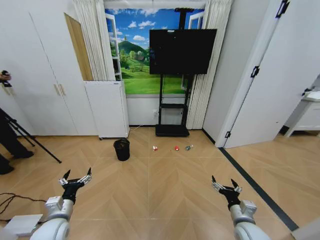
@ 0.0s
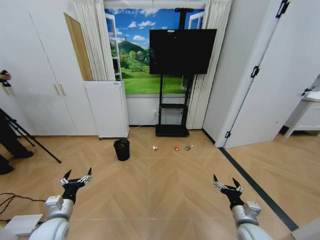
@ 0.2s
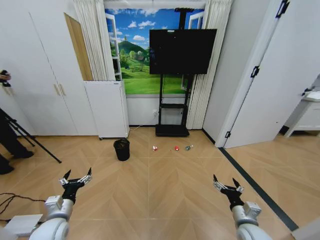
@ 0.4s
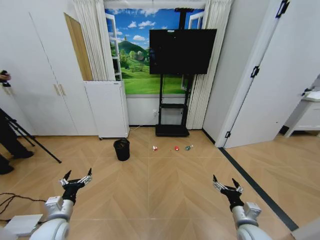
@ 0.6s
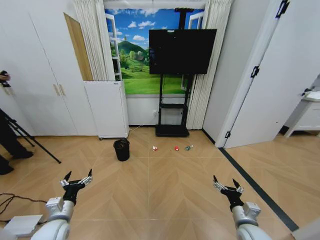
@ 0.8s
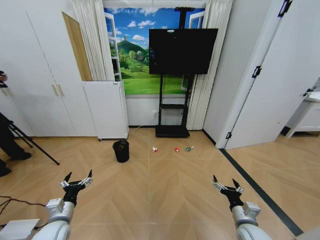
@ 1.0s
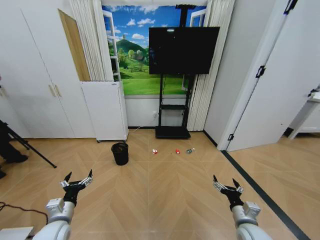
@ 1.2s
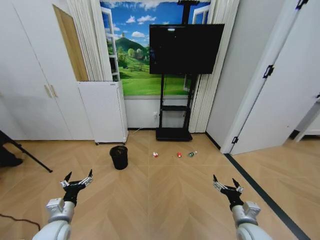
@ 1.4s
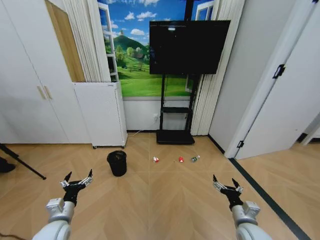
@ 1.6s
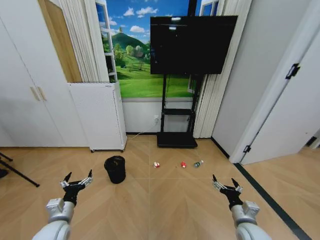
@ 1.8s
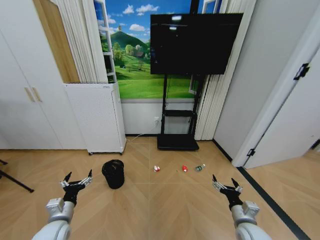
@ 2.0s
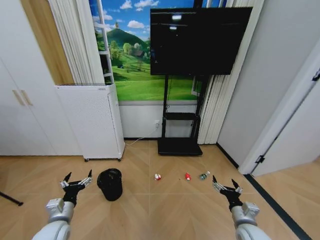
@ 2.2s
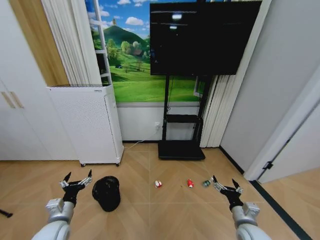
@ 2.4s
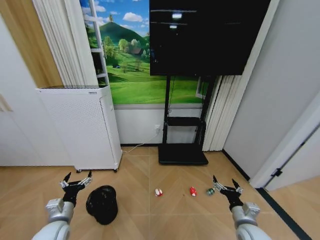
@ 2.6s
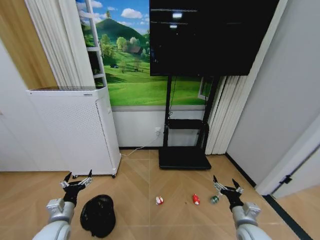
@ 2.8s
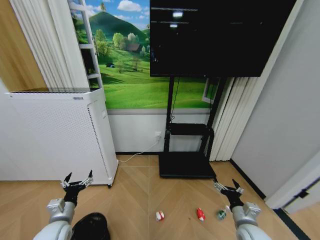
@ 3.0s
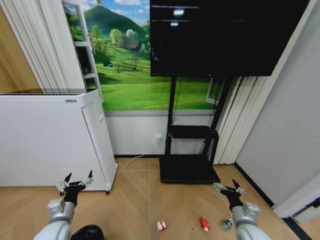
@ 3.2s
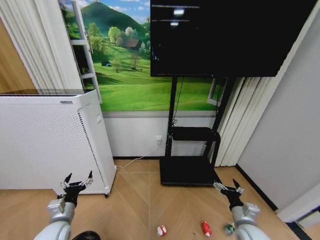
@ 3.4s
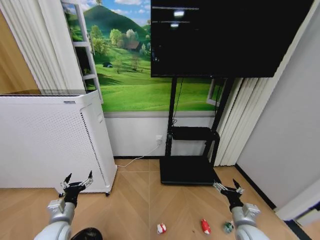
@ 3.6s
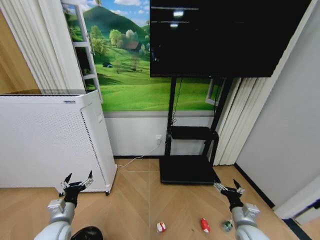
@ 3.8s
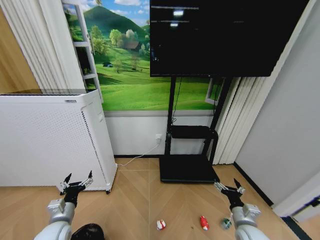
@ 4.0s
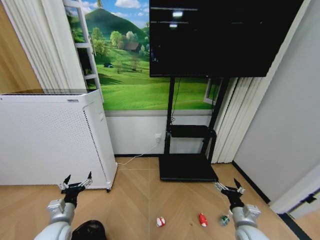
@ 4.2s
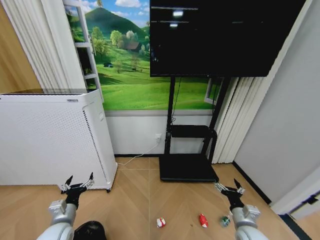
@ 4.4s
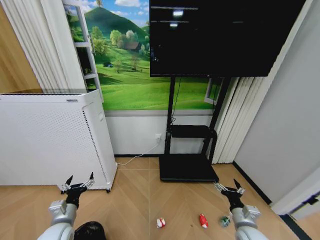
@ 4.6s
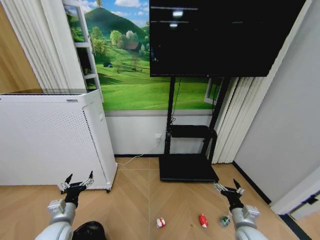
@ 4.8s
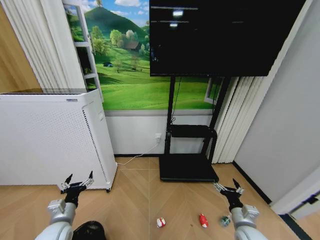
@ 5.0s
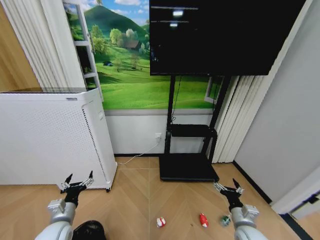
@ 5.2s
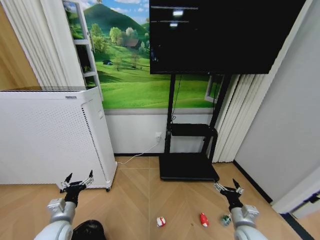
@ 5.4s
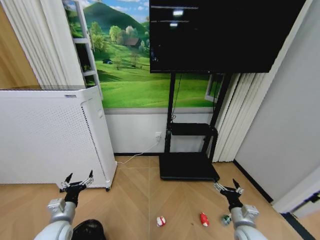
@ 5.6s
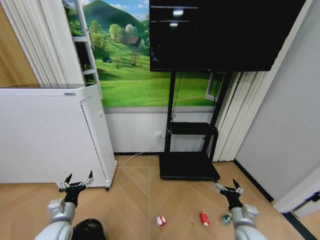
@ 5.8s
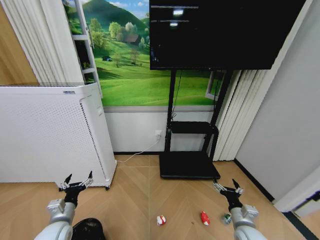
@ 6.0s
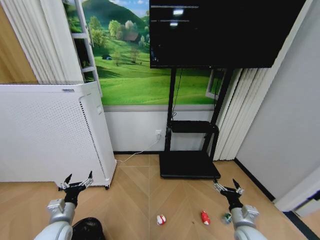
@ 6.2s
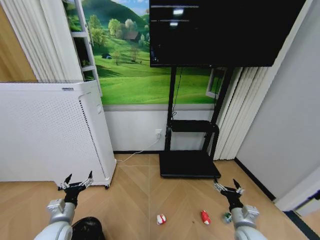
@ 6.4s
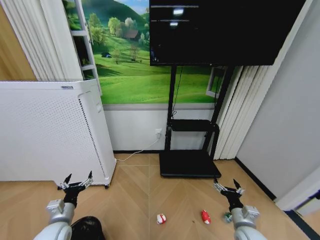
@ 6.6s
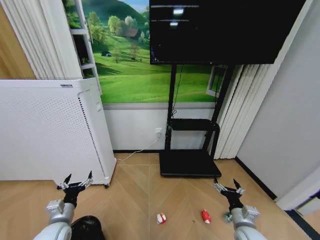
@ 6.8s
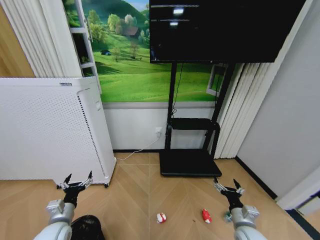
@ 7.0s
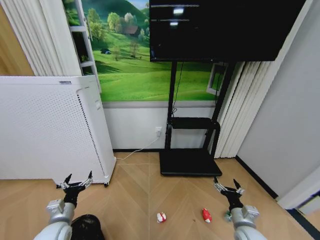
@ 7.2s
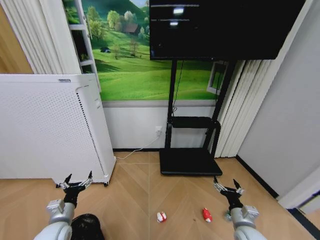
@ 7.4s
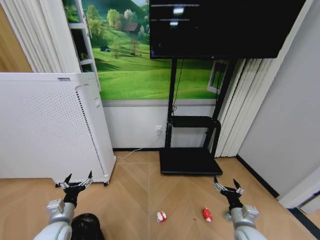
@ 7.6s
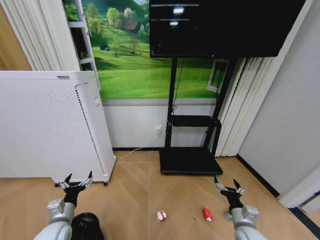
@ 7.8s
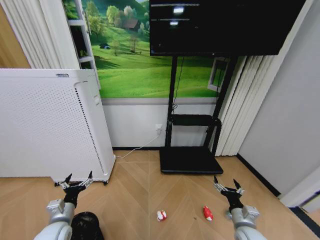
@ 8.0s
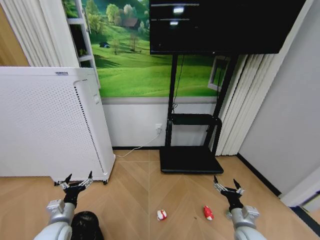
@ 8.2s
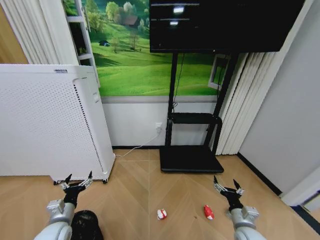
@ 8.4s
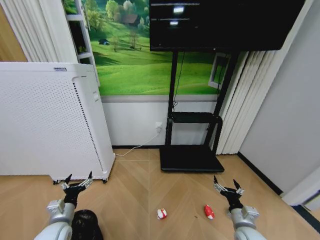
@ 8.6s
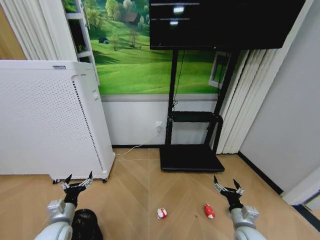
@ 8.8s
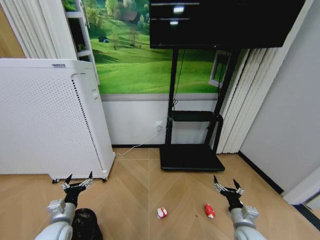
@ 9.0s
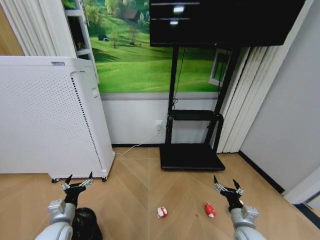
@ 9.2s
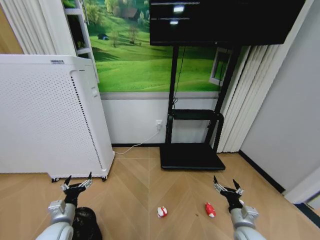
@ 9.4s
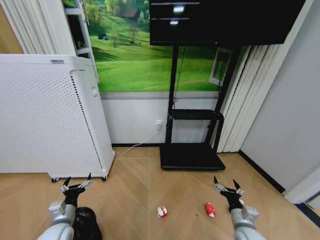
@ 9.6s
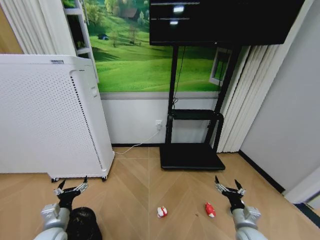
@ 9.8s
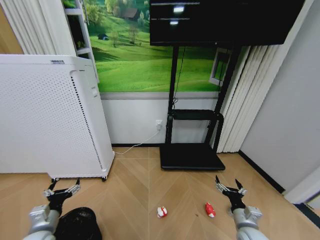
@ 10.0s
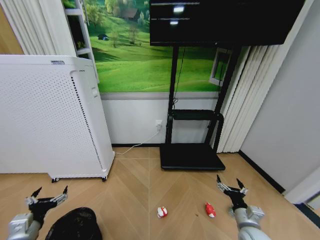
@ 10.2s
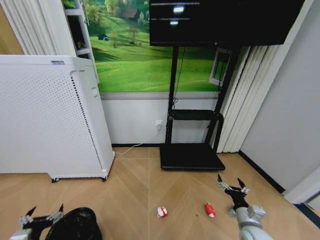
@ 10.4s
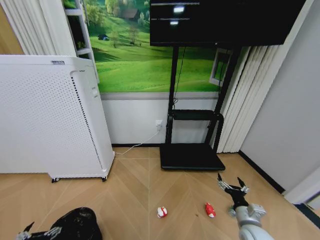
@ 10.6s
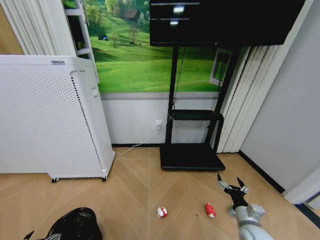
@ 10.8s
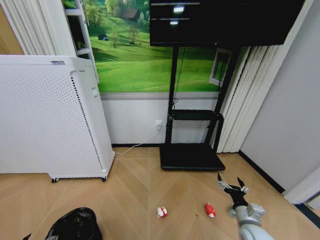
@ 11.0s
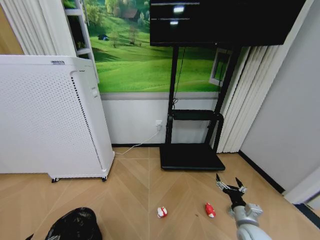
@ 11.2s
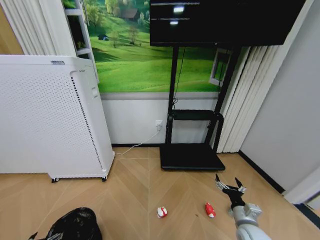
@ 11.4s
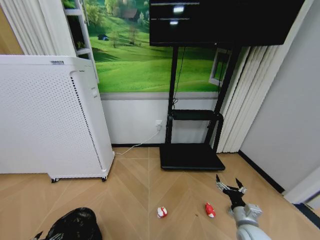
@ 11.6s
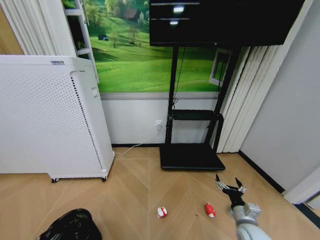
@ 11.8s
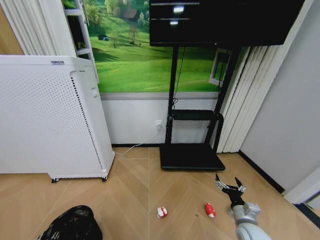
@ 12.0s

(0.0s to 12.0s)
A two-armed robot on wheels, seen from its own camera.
Task of the whole recording: Pick up the trash bin and place the garbage on the floor into it.
3.0s - 4.4s: Both grippers stay put.
4.4s - 9.0s: The two grippers keep their place.
9.0s - 10.4s: The left gripper heads backward and to the left, covering about 10 cm.
10.4s - 12.0s: The left gripper moves downward, roughly 10 cm, and closes.

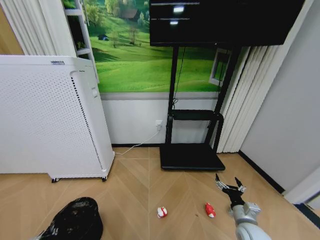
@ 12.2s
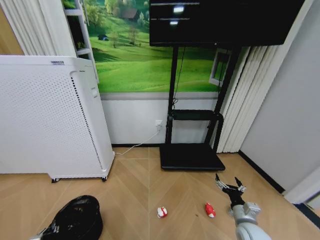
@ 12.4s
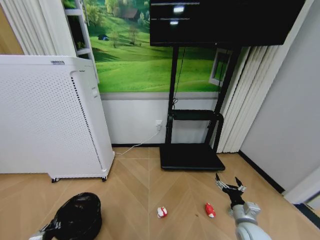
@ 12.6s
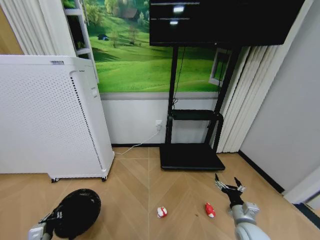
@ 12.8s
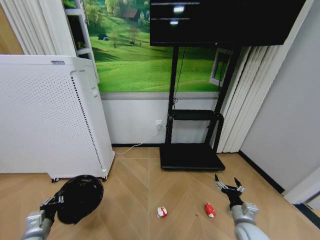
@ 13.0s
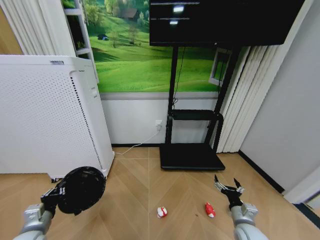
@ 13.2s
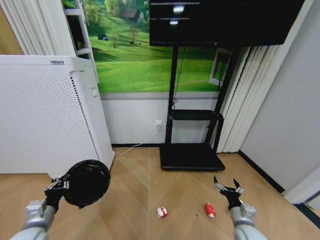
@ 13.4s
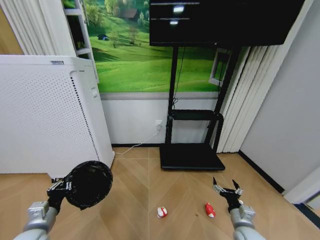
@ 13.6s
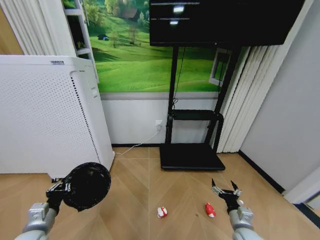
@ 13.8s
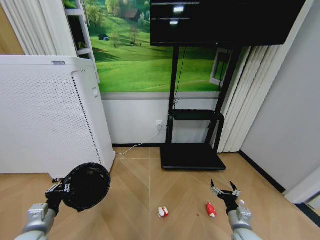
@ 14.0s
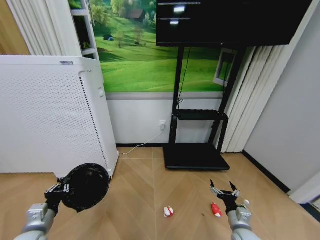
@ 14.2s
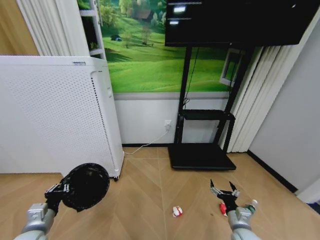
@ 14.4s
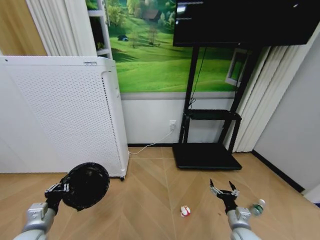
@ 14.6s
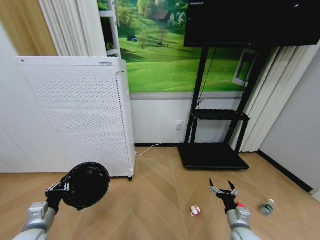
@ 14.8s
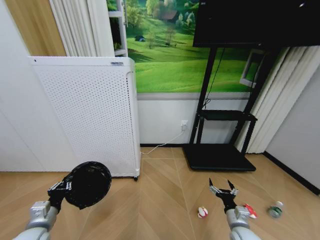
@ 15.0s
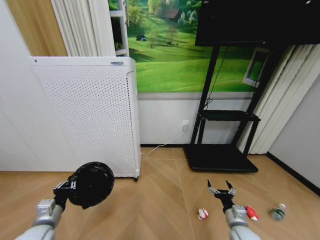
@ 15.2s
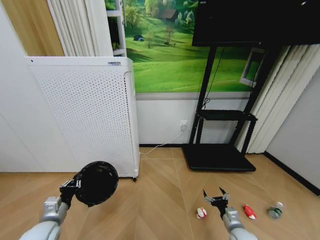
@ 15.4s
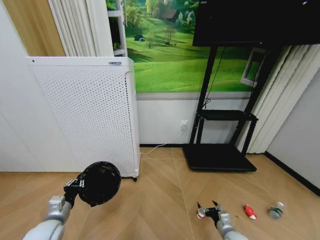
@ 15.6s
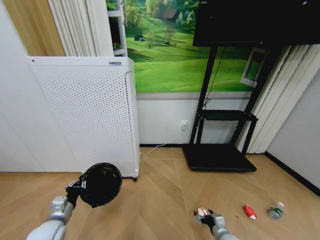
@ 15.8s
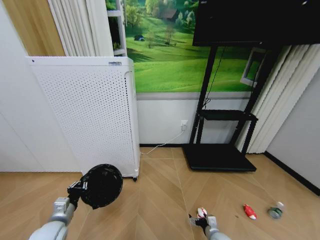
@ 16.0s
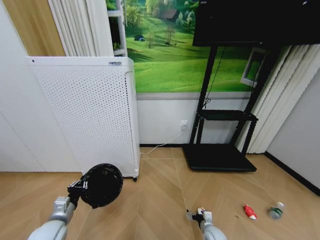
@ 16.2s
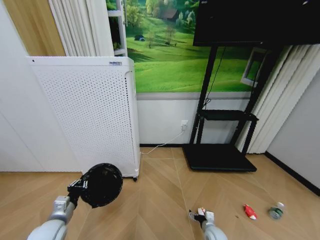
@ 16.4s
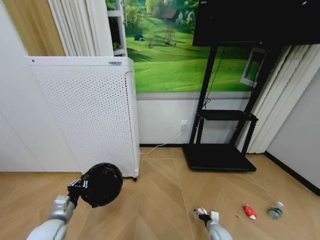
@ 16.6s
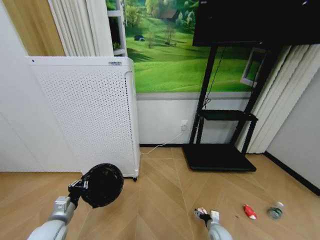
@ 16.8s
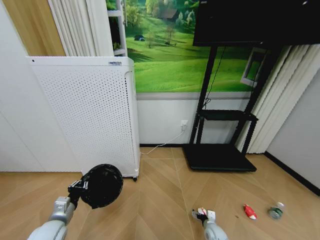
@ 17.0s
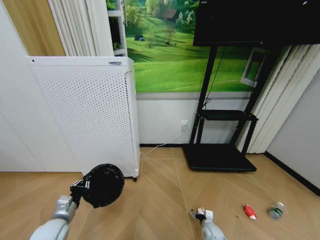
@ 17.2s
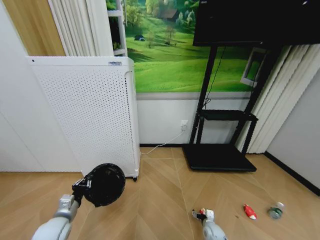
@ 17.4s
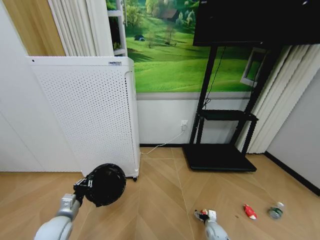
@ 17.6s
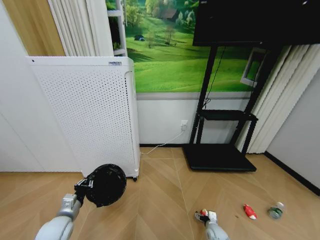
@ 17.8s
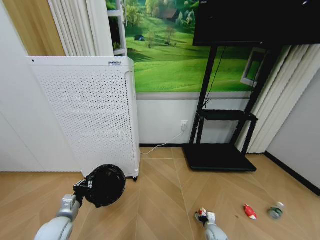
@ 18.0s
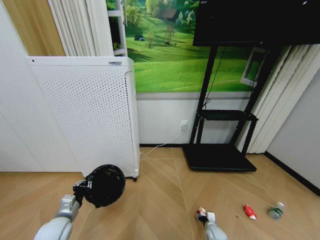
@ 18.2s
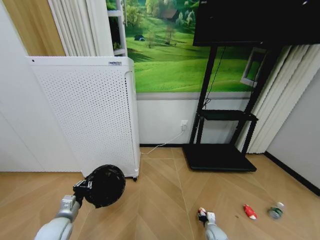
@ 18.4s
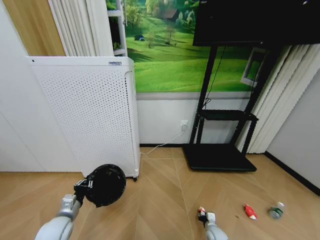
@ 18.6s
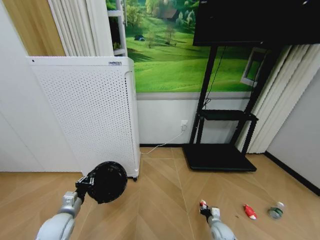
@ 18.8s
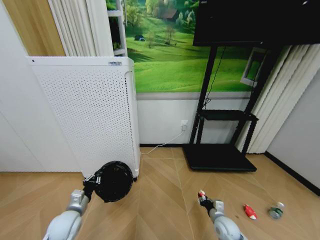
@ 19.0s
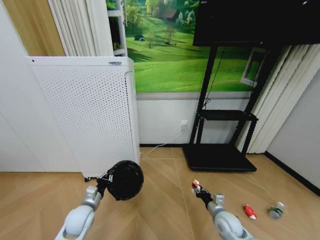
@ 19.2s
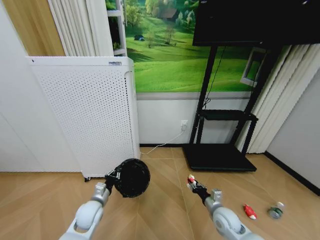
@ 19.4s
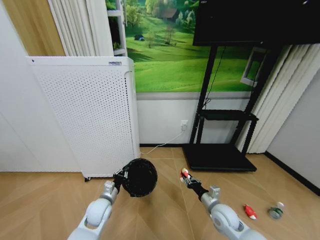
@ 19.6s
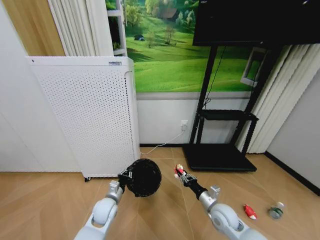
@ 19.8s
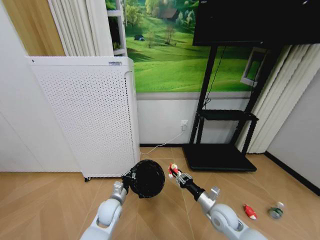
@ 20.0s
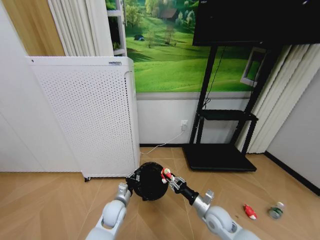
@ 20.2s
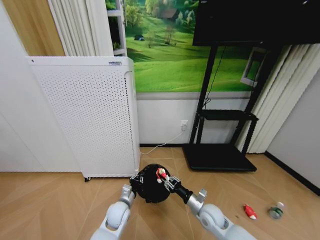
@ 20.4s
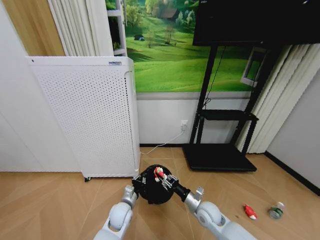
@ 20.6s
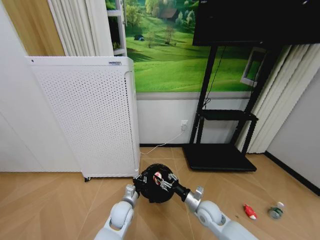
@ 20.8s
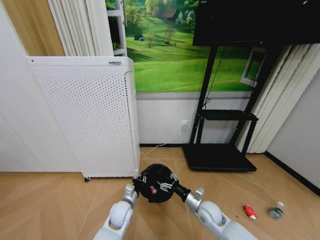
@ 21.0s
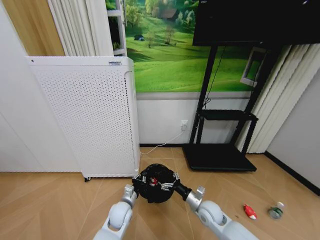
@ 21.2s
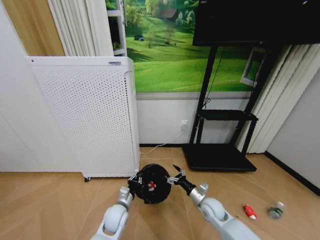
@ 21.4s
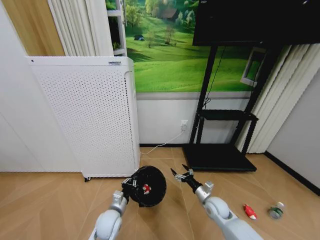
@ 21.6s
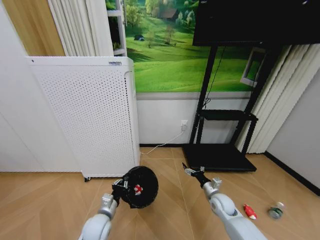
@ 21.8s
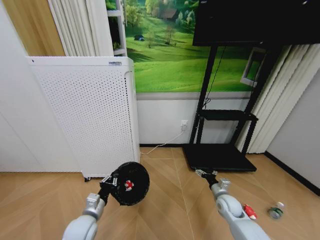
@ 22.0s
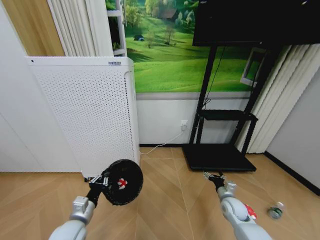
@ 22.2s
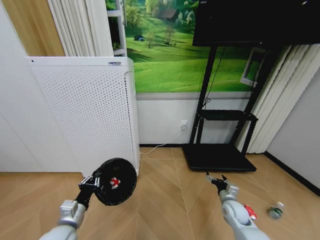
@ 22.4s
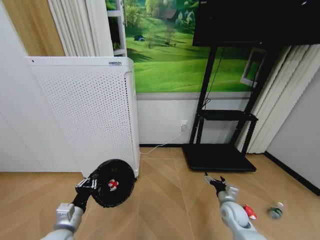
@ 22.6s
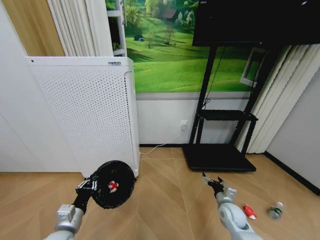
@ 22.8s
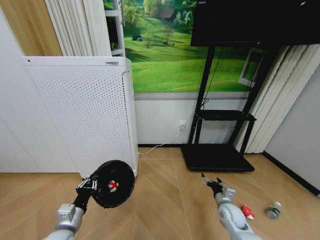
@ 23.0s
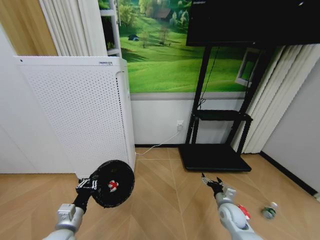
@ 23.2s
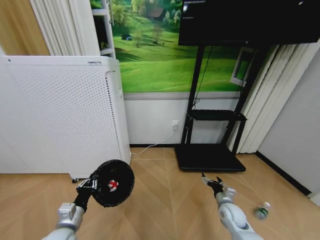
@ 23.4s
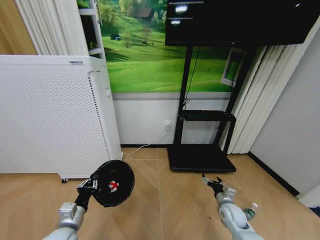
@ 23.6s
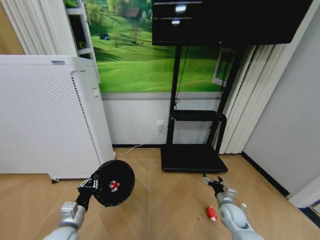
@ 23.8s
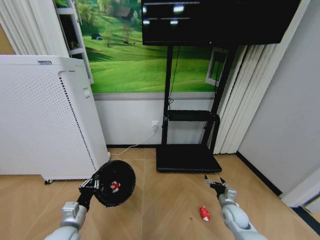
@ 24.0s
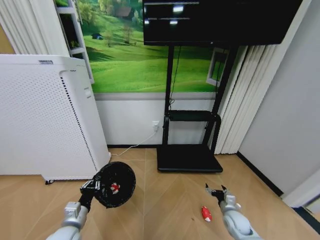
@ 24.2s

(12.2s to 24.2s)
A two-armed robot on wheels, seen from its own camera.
Task of the whole recording: Pick up the trash bin and place the garbage on the floor into it.
12.2s - 13.8s: The left gripper moves upward, to the right and forward, some 15 cm.
15.2s - 16.6s: The right gripper is displaced downward by some 15 cm.
16.6s - 18.2s: The right gripper travels downward by approximately 5 cm, and closes up.
18.2s - 19.8s: The right gripper travels upward by approximately 25 cm, and closes up; the left gripper moves to the right and forward, about 15 cm.
19.8s - 21.2s: The left gripper travels to the right by roughly 5 cm. The right gripper ends up roughly 5 cm from where it was, and opens.
21.2s - 22.6s: The left gripper shifts approximately 20 cm to the left, backward and upward. Meanwhile the right gripper moves to the right, roughly 10 cm.
22.6s - 24.2s: The right gripper moves approximately 5 cm.
